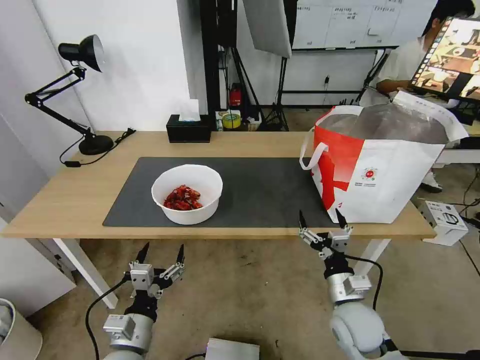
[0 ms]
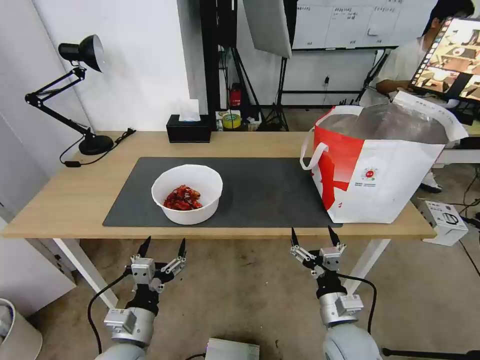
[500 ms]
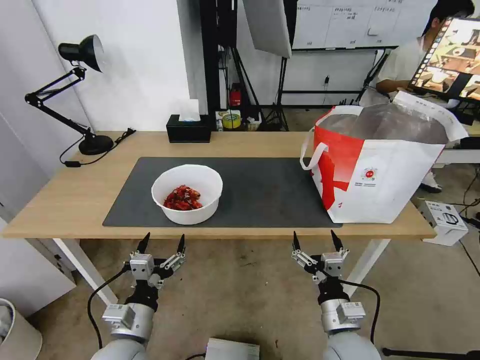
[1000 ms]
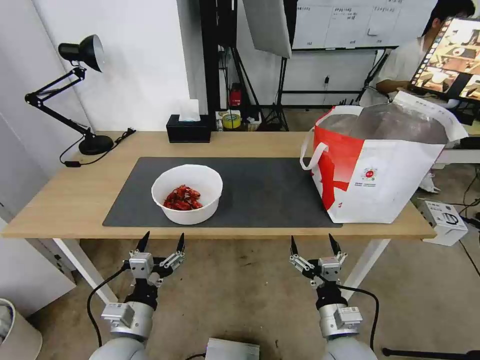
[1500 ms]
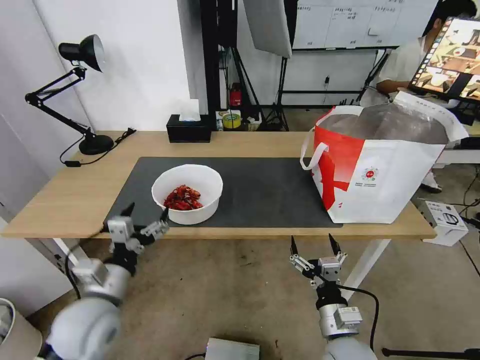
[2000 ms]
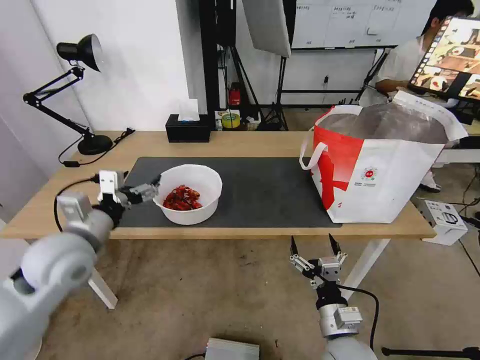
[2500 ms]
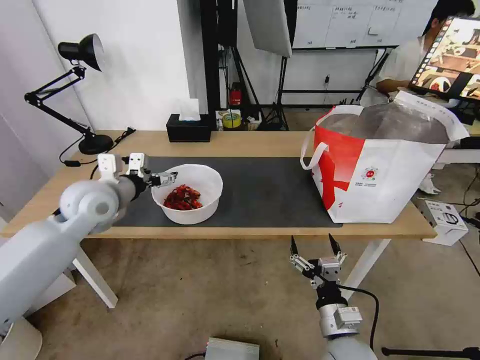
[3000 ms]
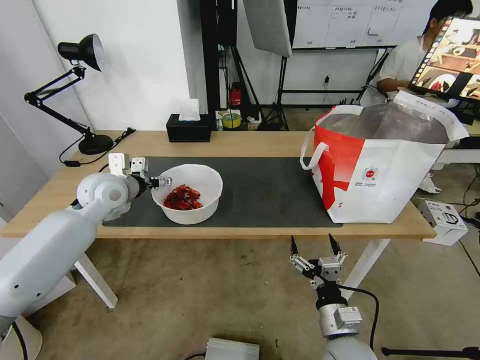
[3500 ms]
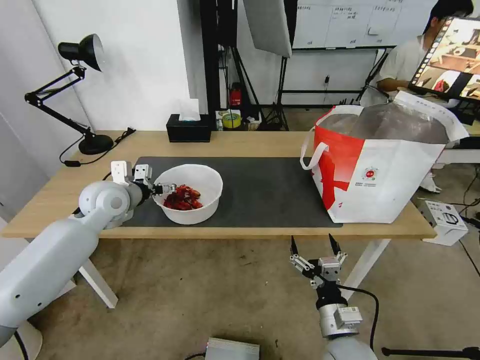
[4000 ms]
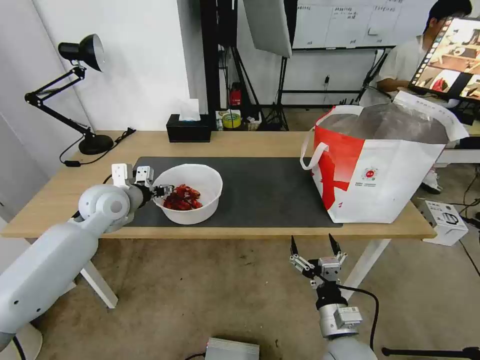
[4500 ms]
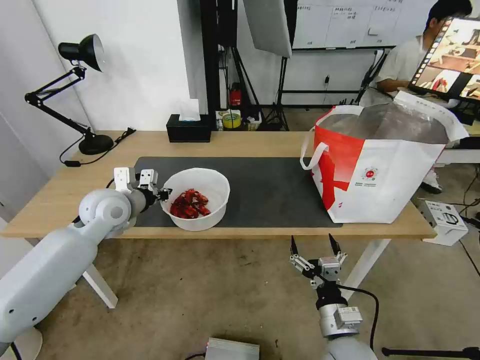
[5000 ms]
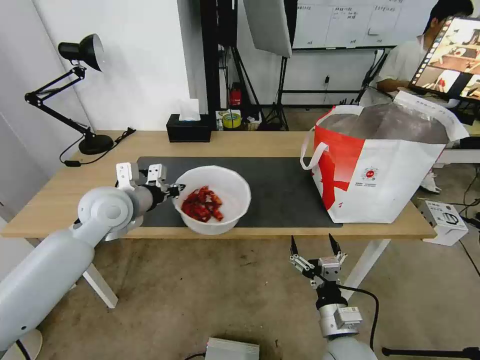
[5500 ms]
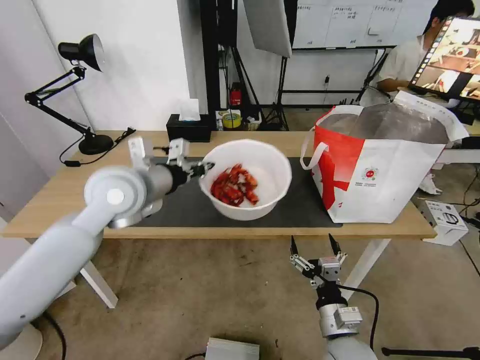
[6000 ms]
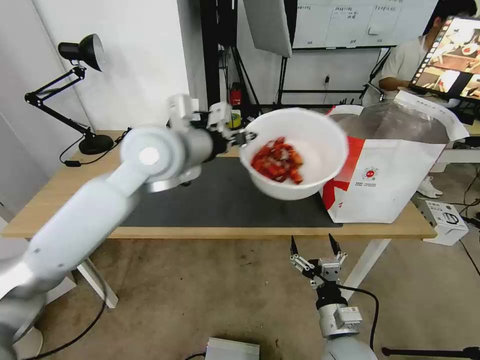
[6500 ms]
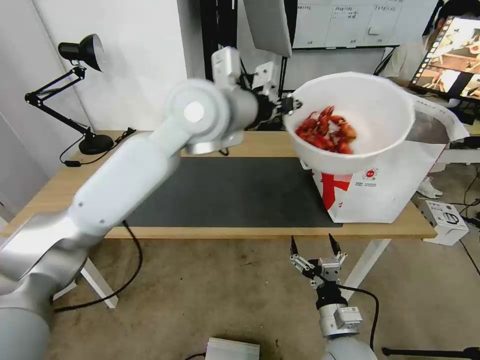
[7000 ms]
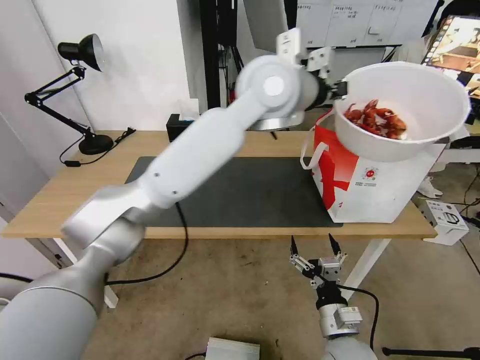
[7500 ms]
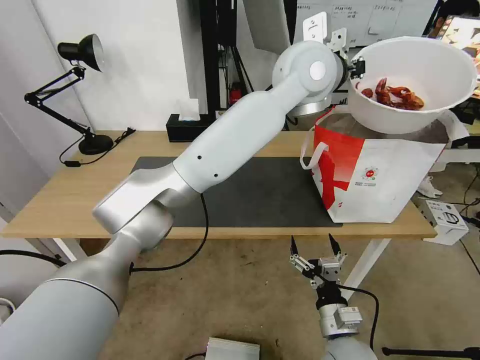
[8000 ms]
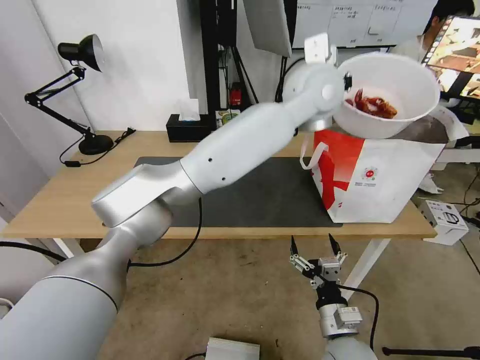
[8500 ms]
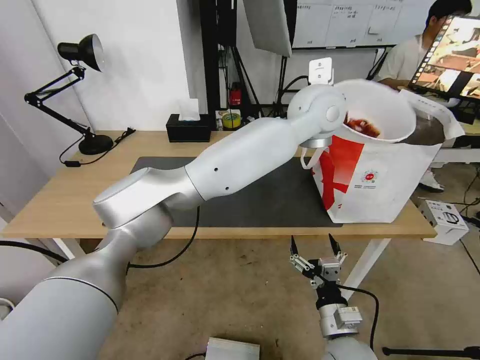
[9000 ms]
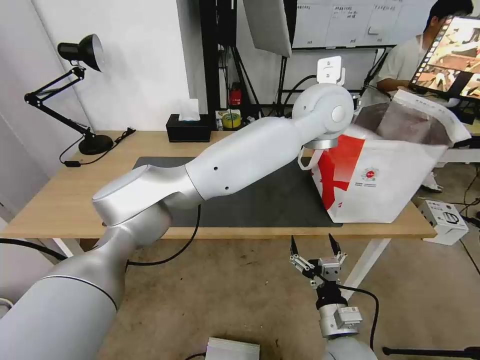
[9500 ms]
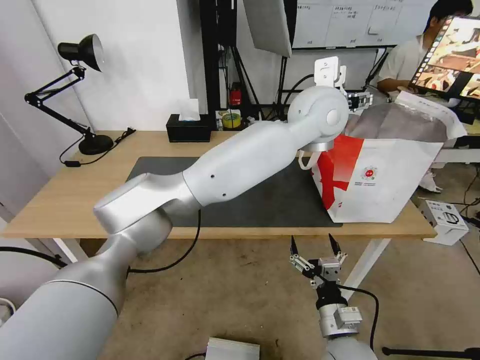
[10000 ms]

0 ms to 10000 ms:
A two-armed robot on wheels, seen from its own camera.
Task of the whole recording: Pick up the trash from the table and place it into the takeout bag.
0 ms to 2000 ms: The right gripper goes approximately 5 cm backward, while the left gripper is displaced upward and forward by approximately 10 cm.
2000 ms to 4000 ms: The left gripper travels forward by about 25 cm.
4000 ms to 6000 ms: The left gripper moves upward, to the right and backward, about 15 cm, and closes.
6000 ms to 8000 ms: The left gripper moves to the right and upward, some 35 cm.
8000 ms to 10000 ms: The left gripper travels downward by roughly 5 cm, and opens up.

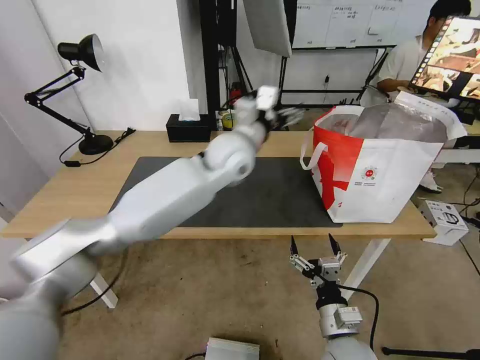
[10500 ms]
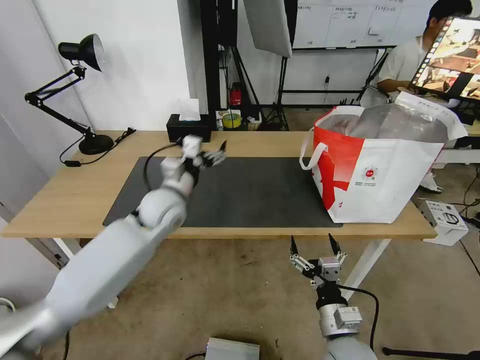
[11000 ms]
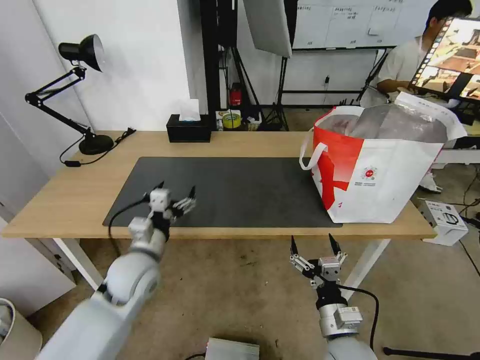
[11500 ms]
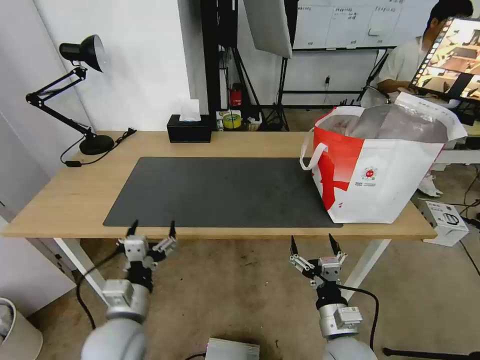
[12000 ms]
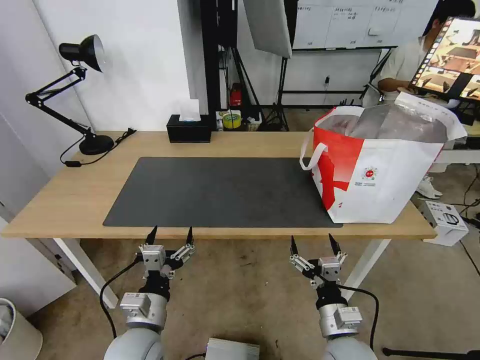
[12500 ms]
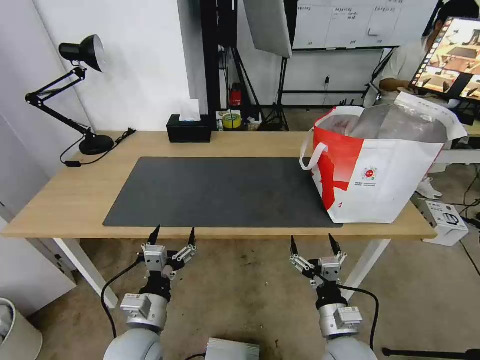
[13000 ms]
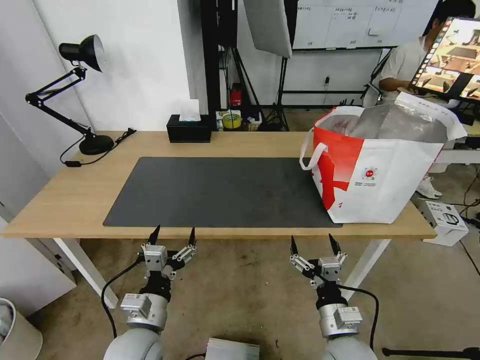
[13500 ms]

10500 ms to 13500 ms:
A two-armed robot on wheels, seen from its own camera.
Task of the whole recording: Pick up the trash from the table and place it into the takeout bag.
10500 ms to 12000 ms: The left gripper is displaced backward, downward and to the left by some 40 cm.
12000 ms to 13500 ms: The grippers move only a little.

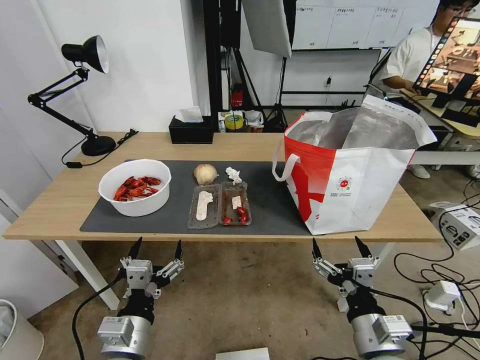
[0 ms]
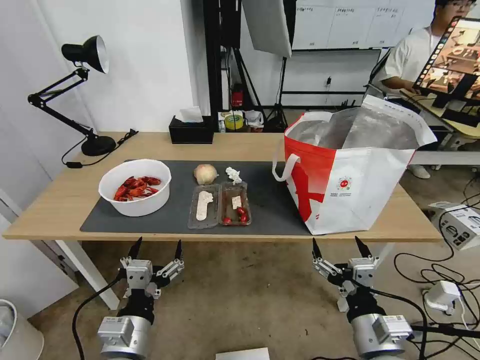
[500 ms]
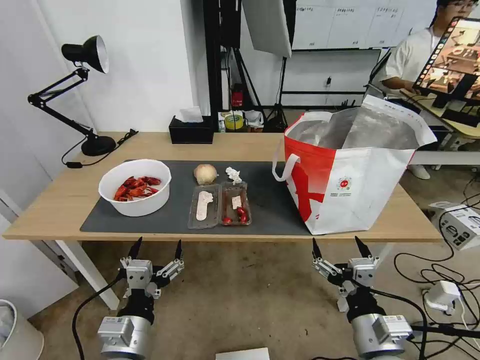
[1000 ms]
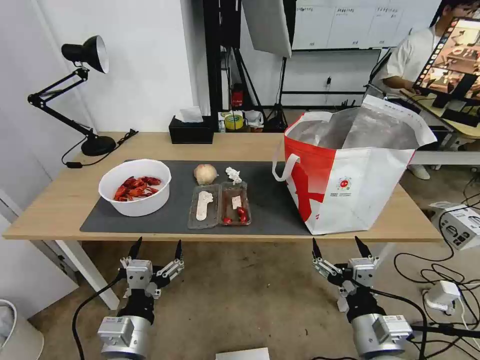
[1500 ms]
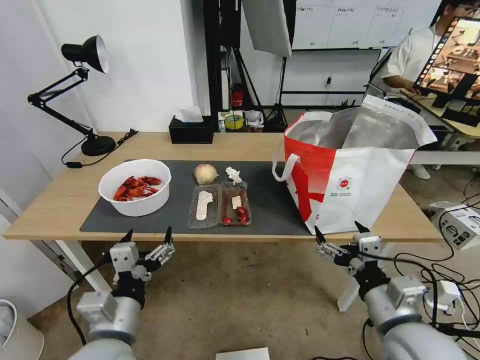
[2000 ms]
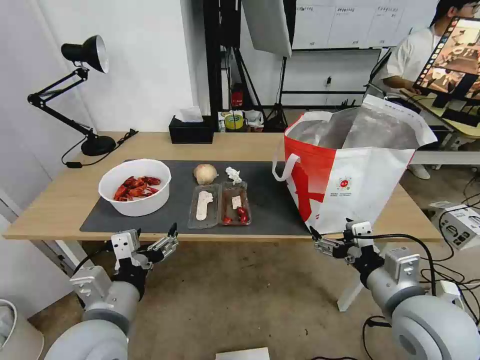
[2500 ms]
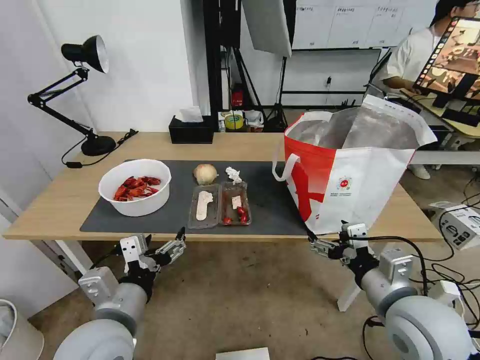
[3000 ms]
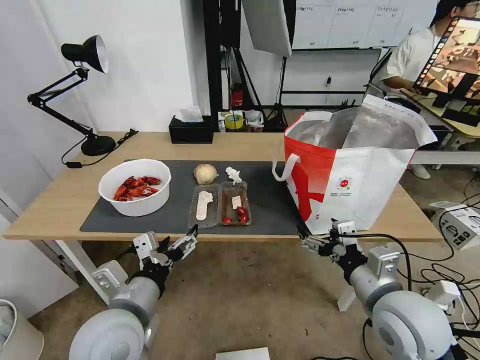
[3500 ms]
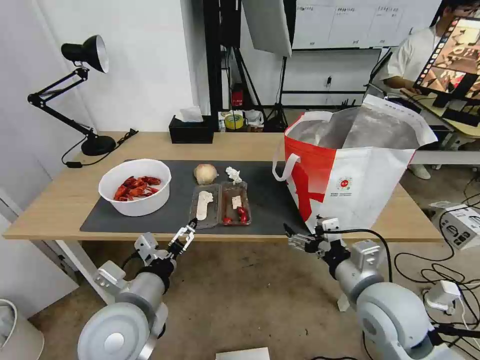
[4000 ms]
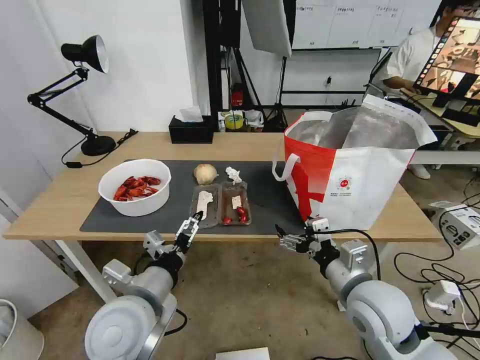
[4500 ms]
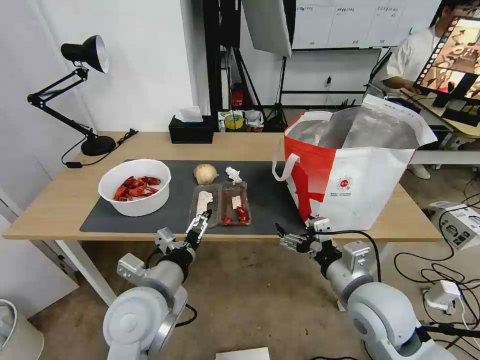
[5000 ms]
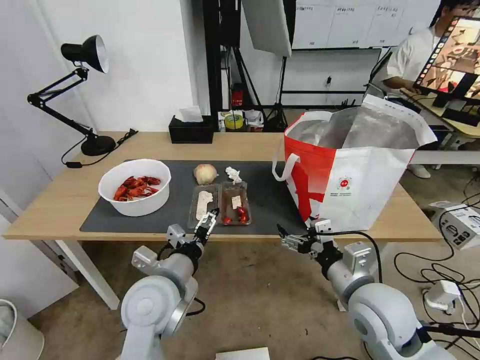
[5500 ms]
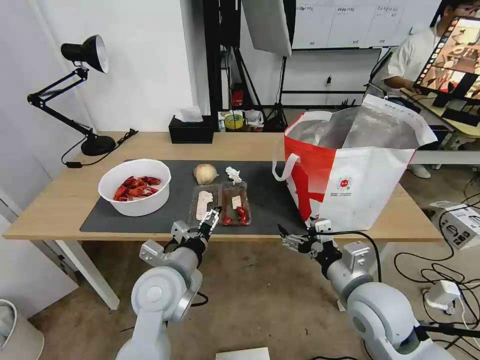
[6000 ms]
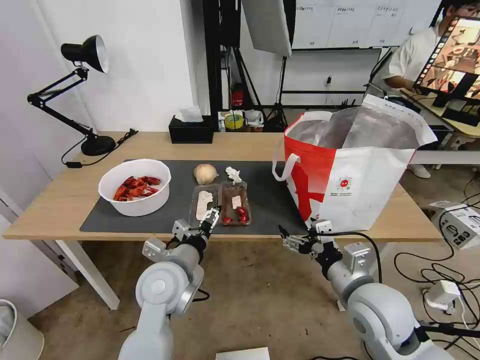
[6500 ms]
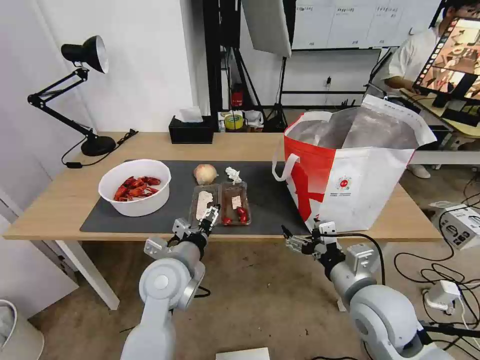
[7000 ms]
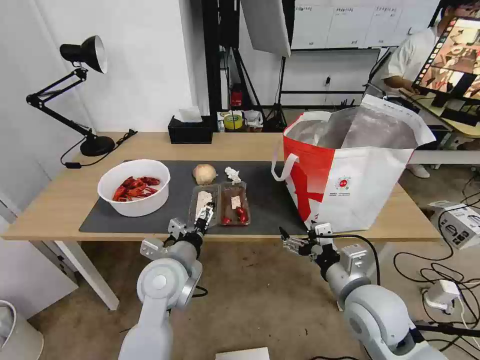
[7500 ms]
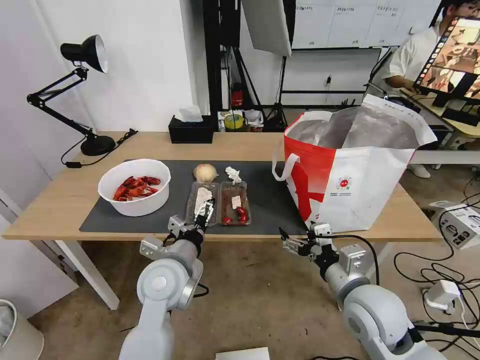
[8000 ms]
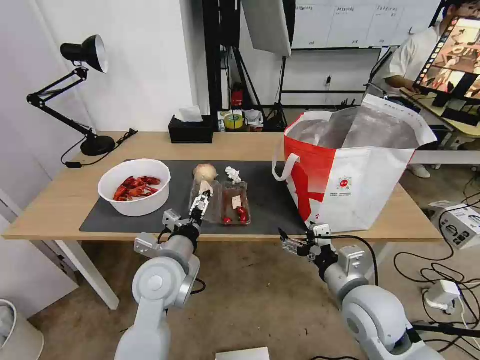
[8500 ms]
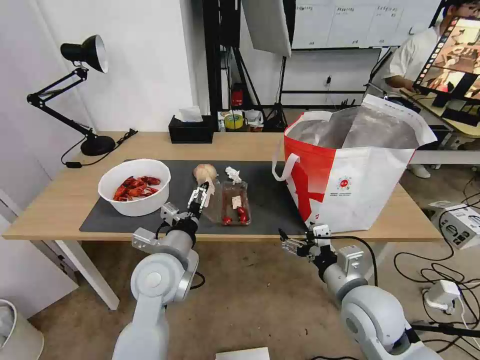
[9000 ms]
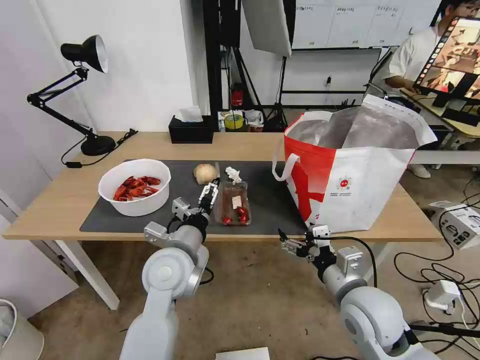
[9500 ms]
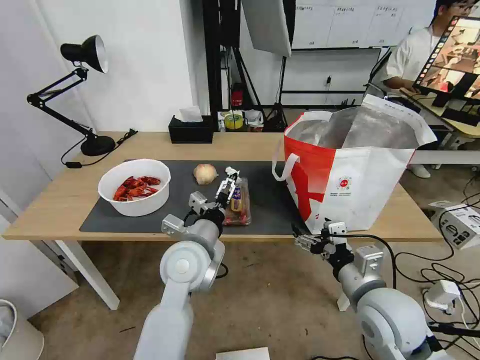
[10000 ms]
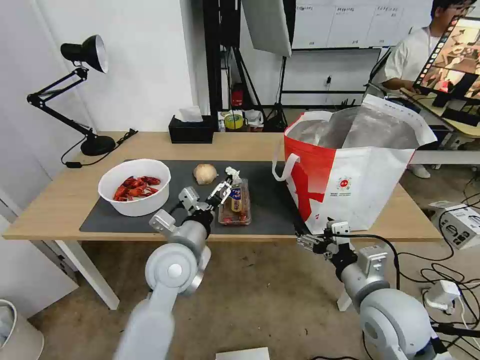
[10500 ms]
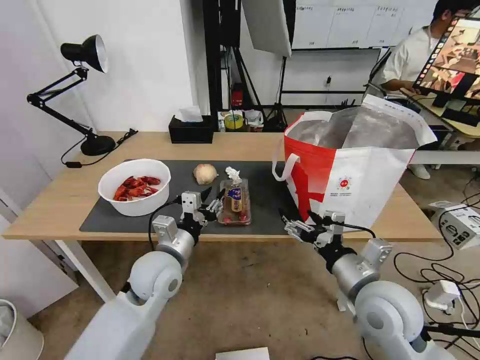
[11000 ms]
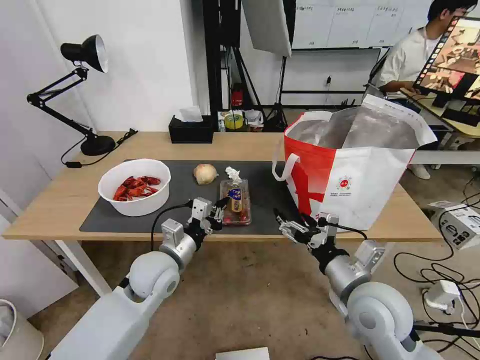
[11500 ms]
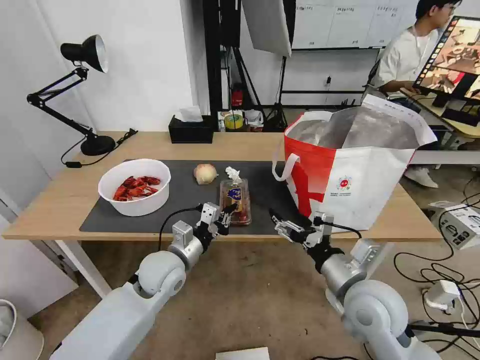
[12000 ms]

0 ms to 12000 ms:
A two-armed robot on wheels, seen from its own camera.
Task of the whole recording: Pick up the trash from the table and place it into the takeout bag.
2000 ms to 4000 ms: The left gripper moves approximately 5 cm. Meanwhile the right gripper moves forward, some 5 cm.
4000 ms to 6000 ms: The left gripper travels forward by roughly 5 cm.
6000 ms to 8000 ms: The grippers stay close to where they were, moving slightly.
8000 ms to 10000 ms: The left gripper changes place by about 5 cm.
10000 ms to 12000 ms: The left gripper is displaced downward and to the left by about 10 cm, and closes its fingers.
